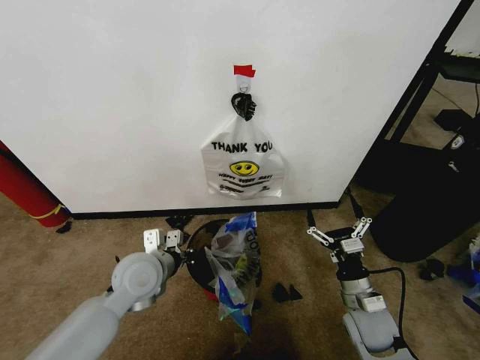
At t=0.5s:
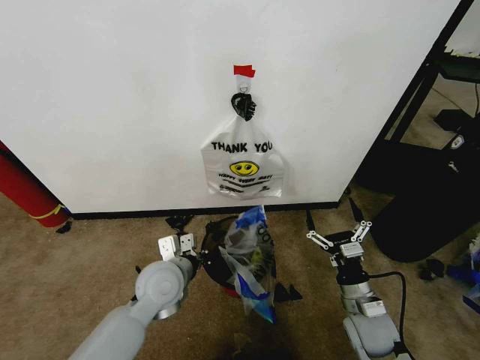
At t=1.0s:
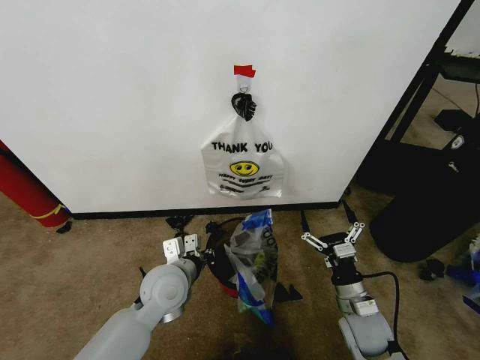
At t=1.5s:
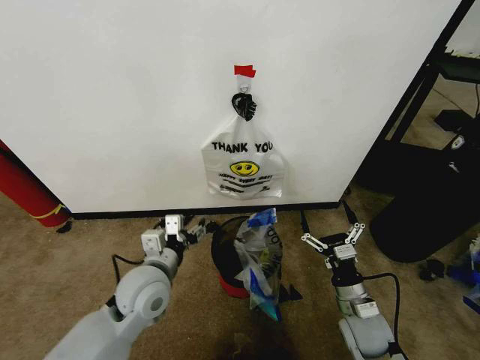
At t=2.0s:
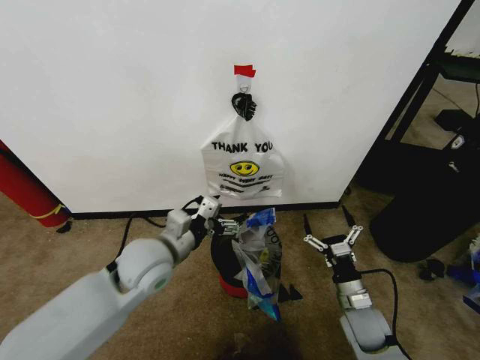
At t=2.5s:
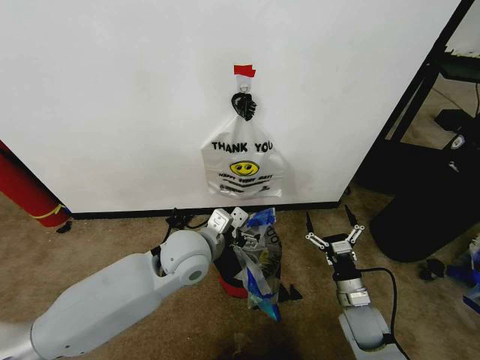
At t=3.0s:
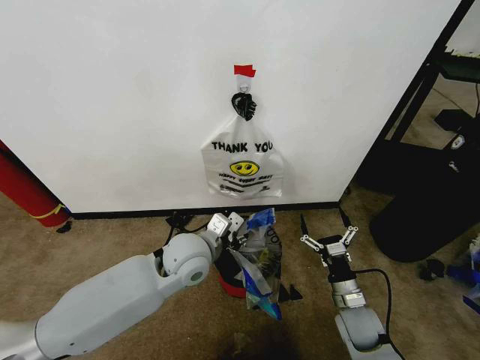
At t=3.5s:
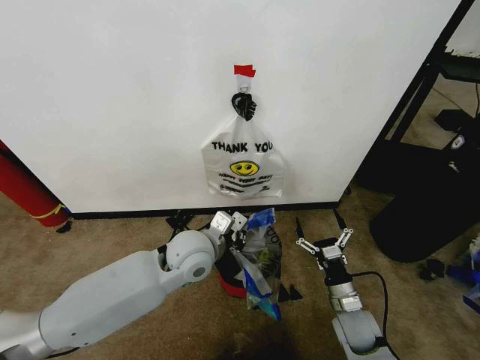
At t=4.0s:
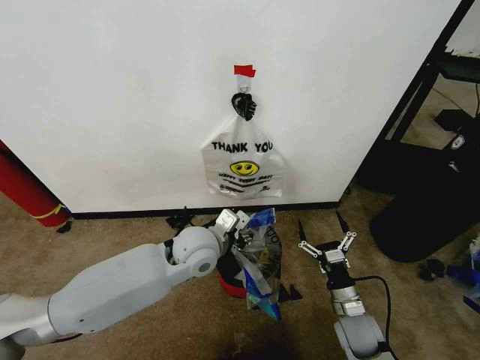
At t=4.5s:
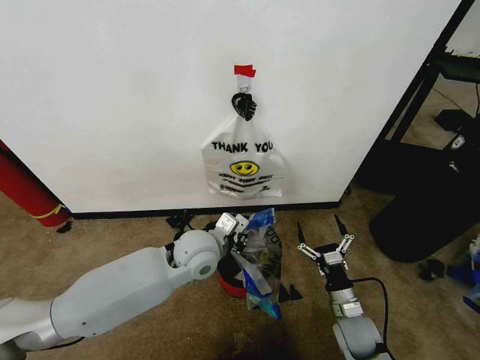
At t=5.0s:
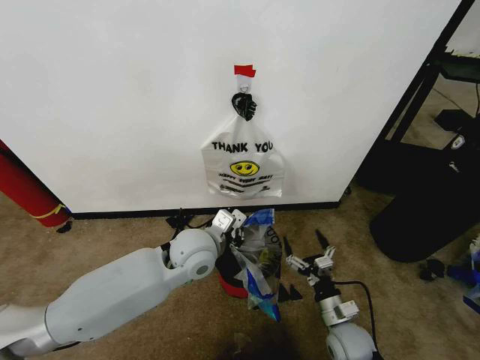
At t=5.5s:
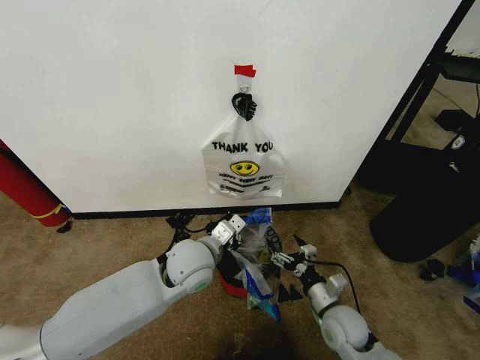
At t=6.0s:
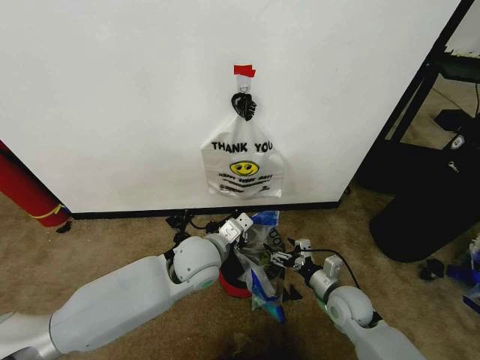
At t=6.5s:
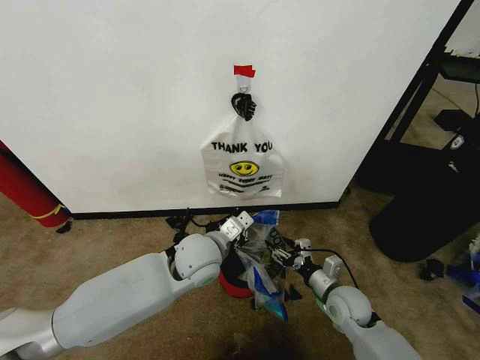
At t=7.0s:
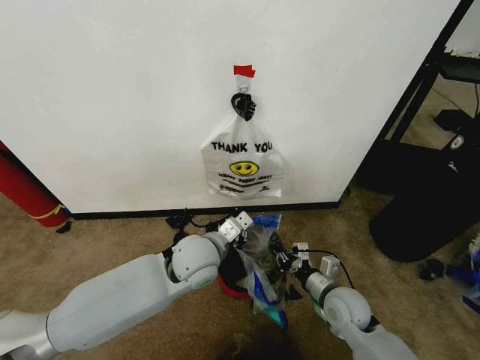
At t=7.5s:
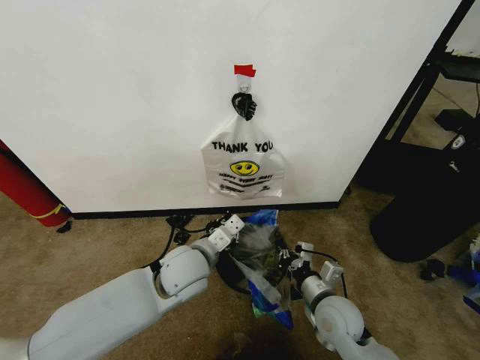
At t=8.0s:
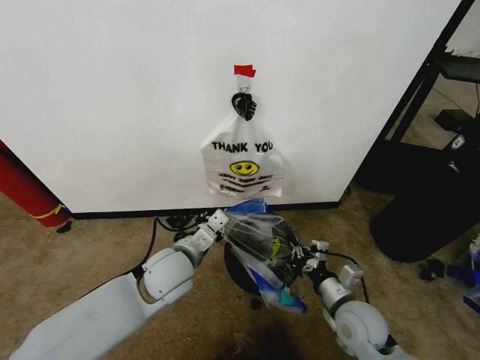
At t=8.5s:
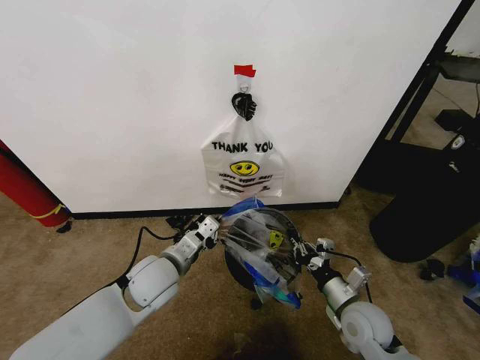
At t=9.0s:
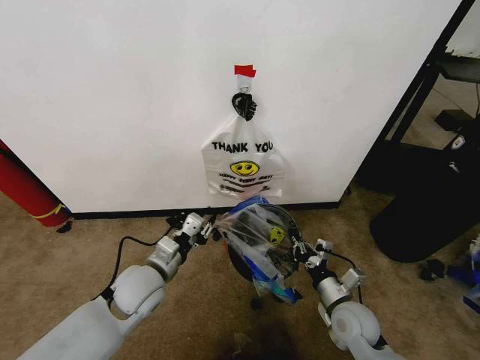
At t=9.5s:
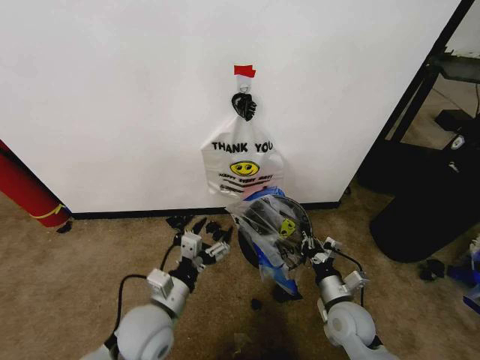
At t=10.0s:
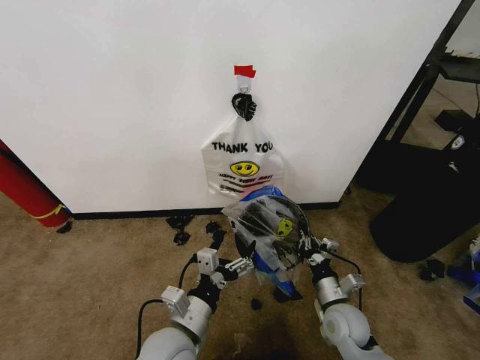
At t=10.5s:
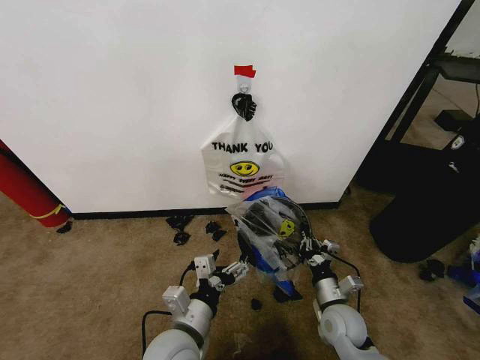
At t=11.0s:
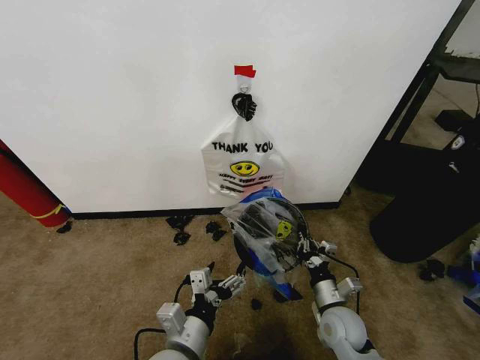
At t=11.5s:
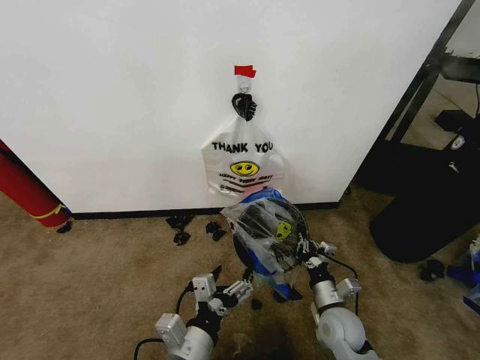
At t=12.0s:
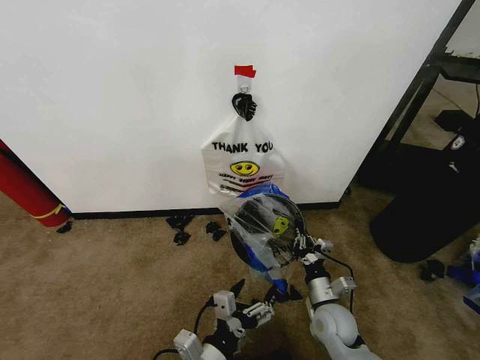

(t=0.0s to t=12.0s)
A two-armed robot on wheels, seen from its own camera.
Task of the whole recording: Pick up the garbage bag from the wall and place it over the trash bin.
t=0.0s - t=2.0s: The left gripper moves approximately 5 cm, and opens up.
t=2.0s - t=4.0s: The left gripper shifts some 10 cm to the right, and closes.
t=4.0s - t=6.0s: The left gripper closes its fingers, while the right gripper shifts by some 5 cm.
t=6.0s - t=8.0s: The left gripper goes approximately 5 cm to the left. Meanwhile the right gripper shifts approximately 5 cm backward, and closes its fingers.
t=8.0s - t=10.0s: The left gripper is displaced backward by some 15 cm, and opens up, while the right gripper heads downward, covering about 5 cm.
t=10.0s - t=12.0s: The left gripper travels backward by approximately 5 cm.

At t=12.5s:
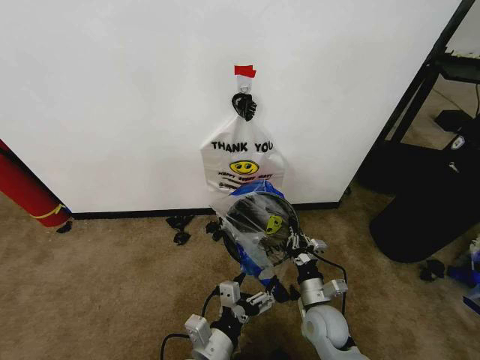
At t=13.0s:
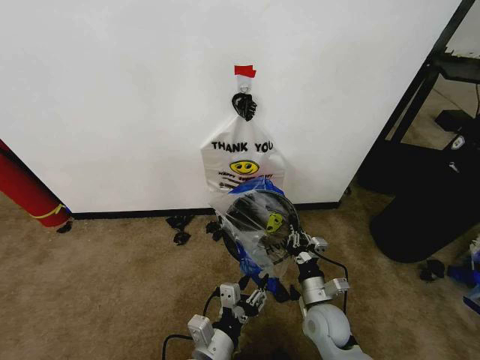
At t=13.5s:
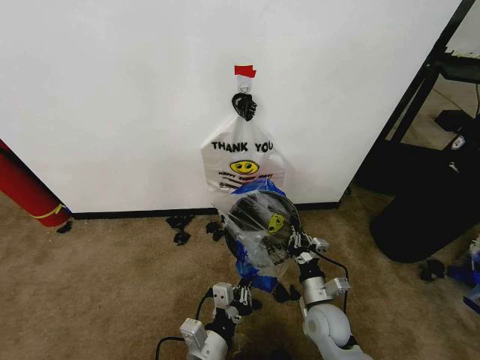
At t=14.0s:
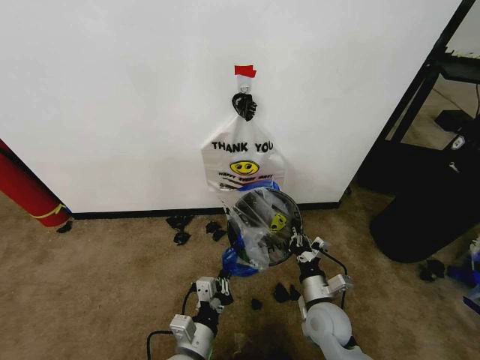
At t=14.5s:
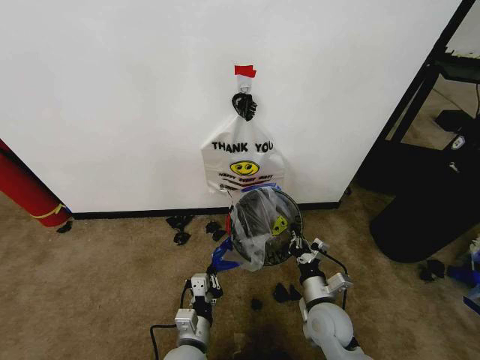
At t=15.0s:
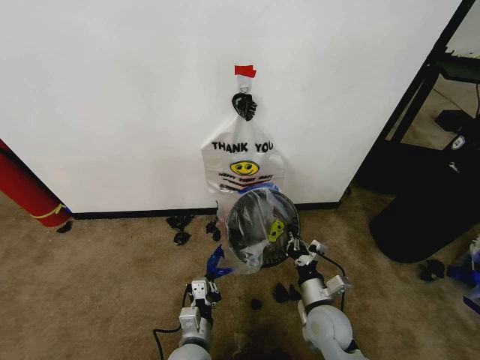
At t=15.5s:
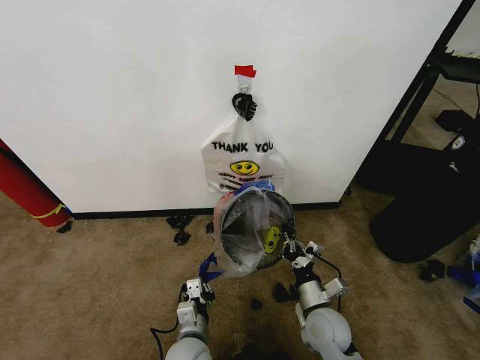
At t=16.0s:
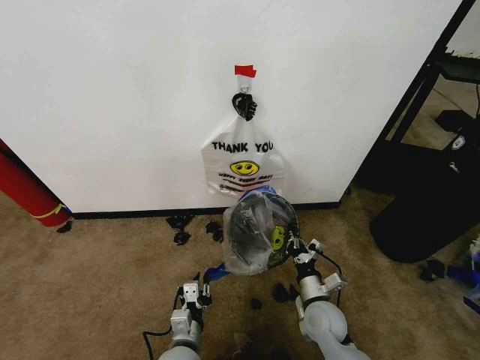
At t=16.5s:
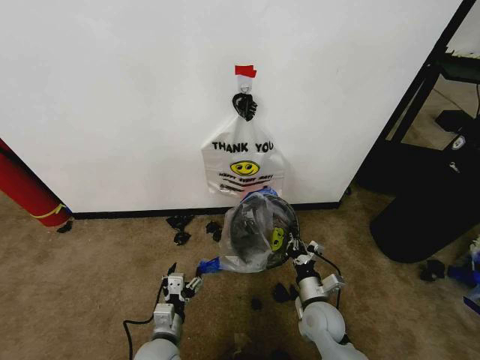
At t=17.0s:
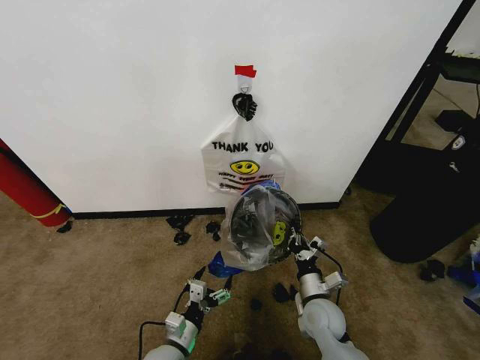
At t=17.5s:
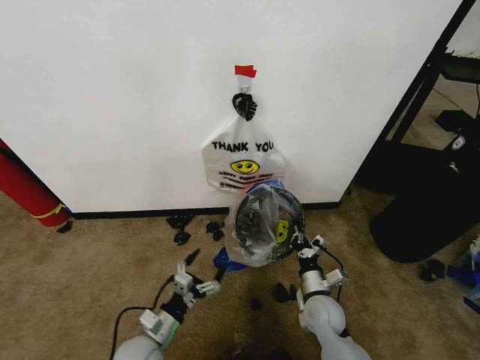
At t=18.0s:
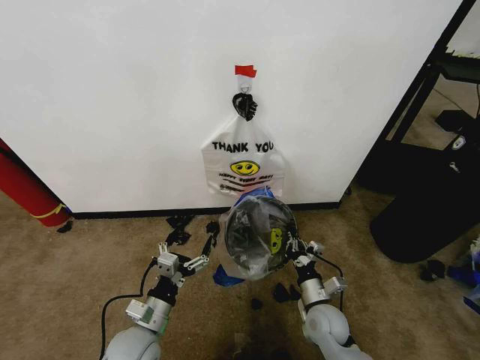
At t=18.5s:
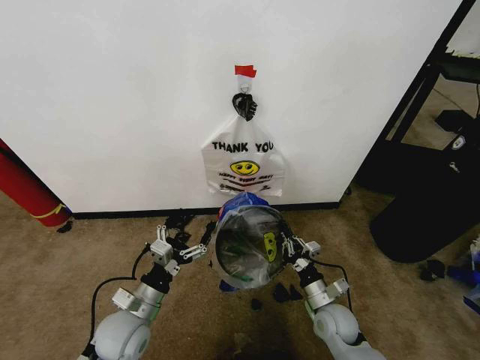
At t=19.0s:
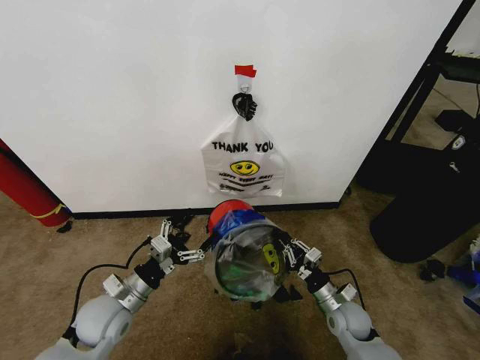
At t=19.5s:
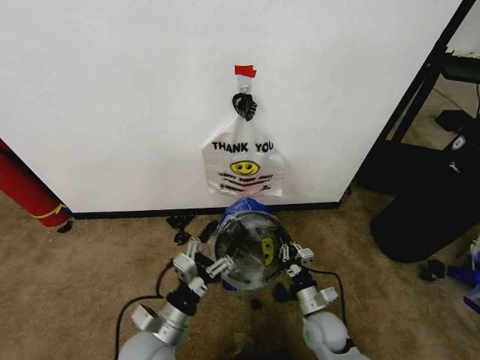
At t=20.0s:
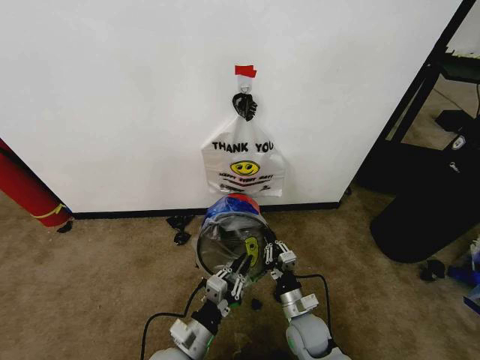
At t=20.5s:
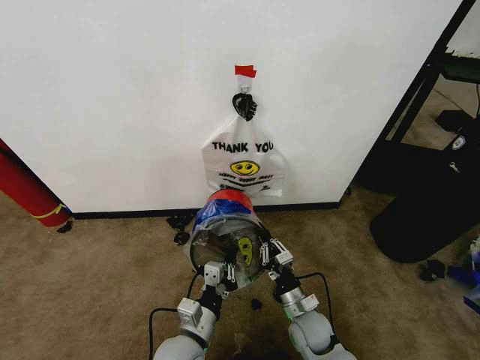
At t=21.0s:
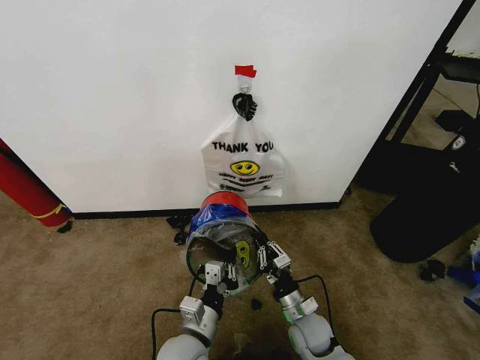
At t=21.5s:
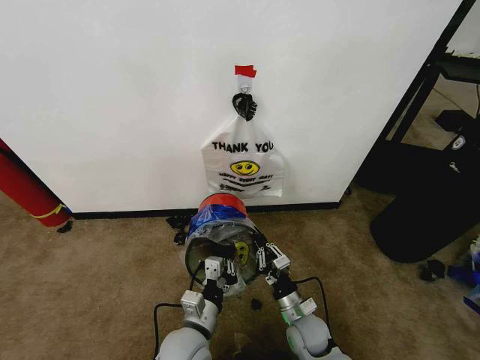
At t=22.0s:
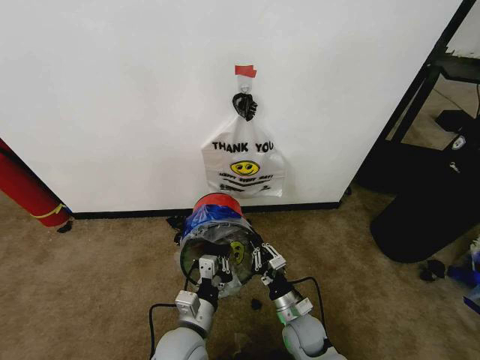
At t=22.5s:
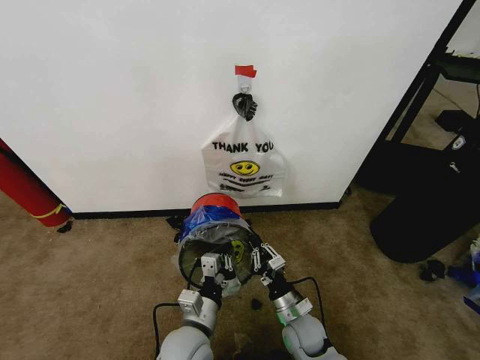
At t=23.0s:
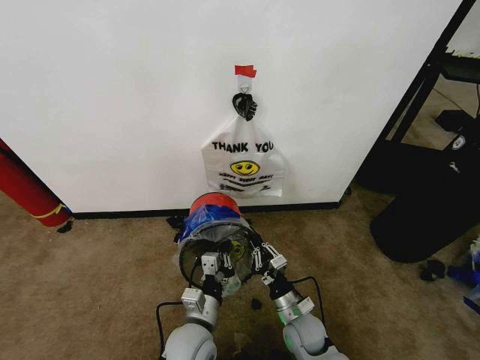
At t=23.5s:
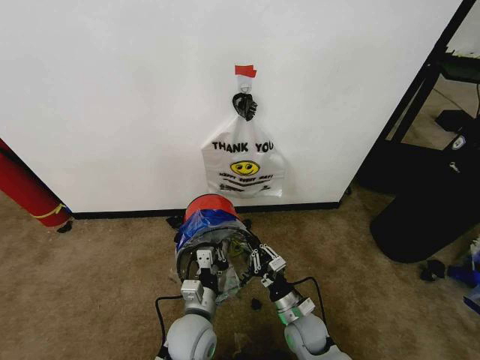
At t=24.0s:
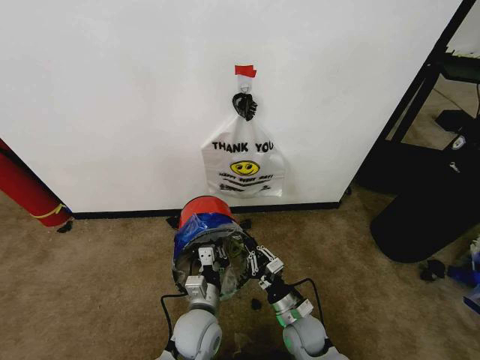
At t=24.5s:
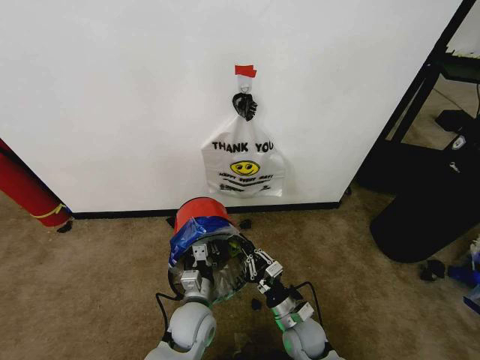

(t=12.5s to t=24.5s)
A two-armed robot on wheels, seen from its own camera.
Task of the whole recording: Pick up the garbage bag from the wall and place it over the trash bin.
t=12.5s - t=14.5s: The left gripper is displaced downward by approximately 5 cm, and closes up.
t=14.5s - t=16.5s: The left gripper goes approximately 5 cm to the left, and opens.
t=16.5s - t=18.5s: The left gripper goes about 10 cm upward and to the left.
t=18.5s - t=20.5s: The left gripper shifts roughly 10 cm to the right, and closes up; the right gripper goes some 5 cm to the left.
t=20.5s - t=22.5s: The grippers move only a little.
t=22.5s - t=24.5s: The left gripper goes roughly 5 cm forward.

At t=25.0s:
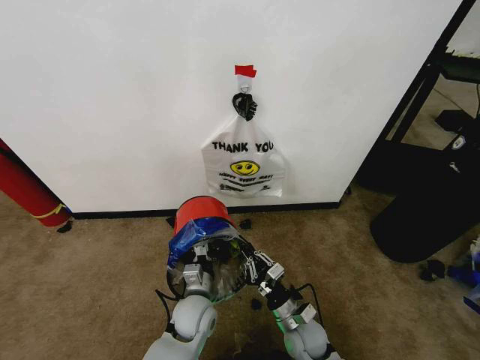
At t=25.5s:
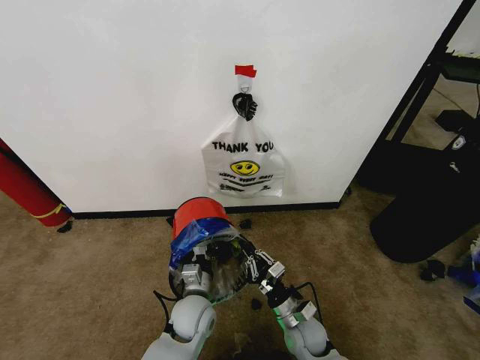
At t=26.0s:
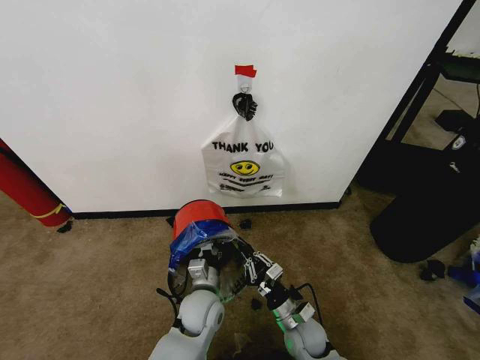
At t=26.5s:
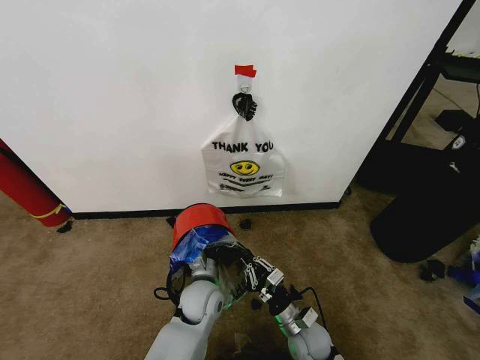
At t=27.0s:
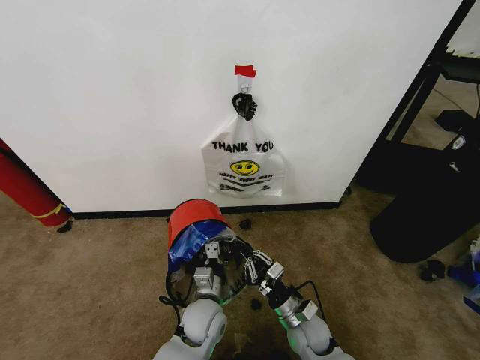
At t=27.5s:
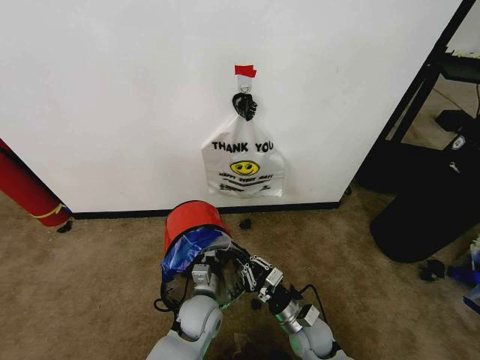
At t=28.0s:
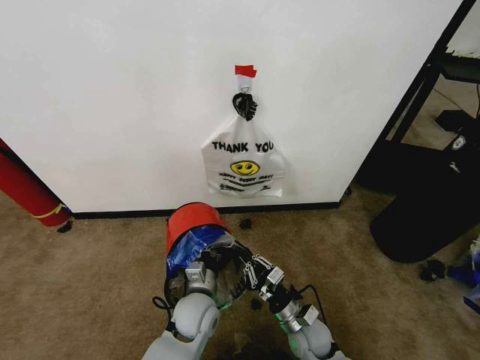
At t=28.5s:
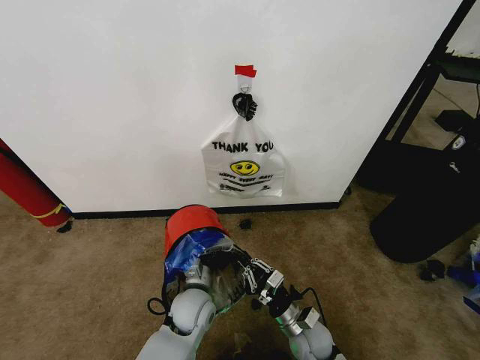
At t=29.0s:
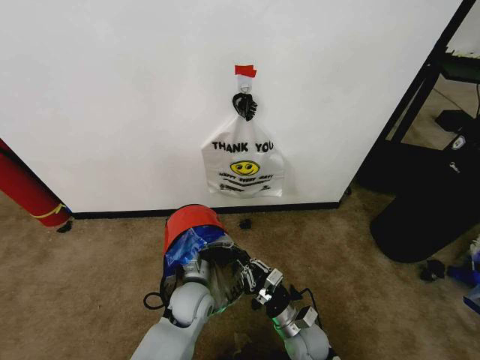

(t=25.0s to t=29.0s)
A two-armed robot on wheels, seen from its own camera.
Task of the whole recording: Pick up the garbage bag from the wall and place it over the trash bin.
t=25.0s - t=27.0s: The grippers make only small movements.
t=27.0s - t=29.0s: The left gripper changes place by some 5 cm.
